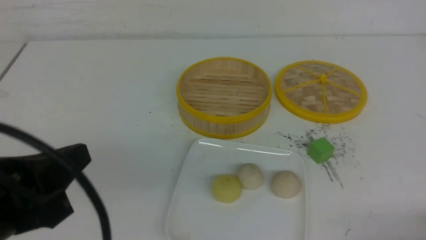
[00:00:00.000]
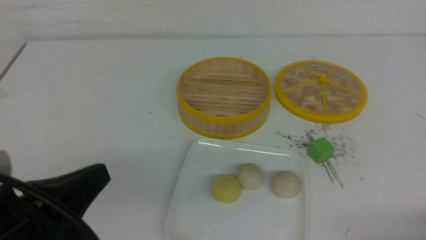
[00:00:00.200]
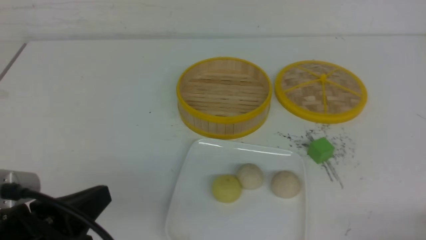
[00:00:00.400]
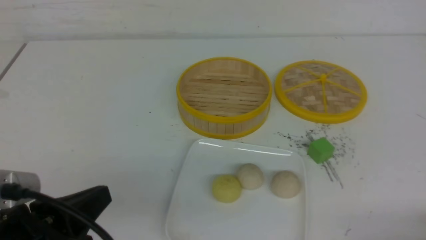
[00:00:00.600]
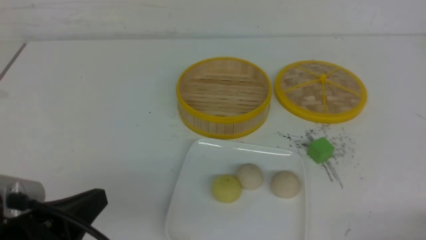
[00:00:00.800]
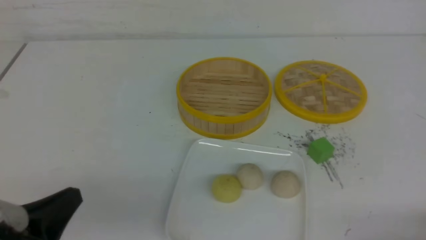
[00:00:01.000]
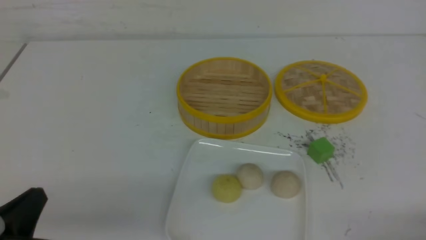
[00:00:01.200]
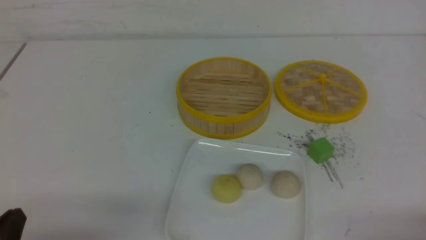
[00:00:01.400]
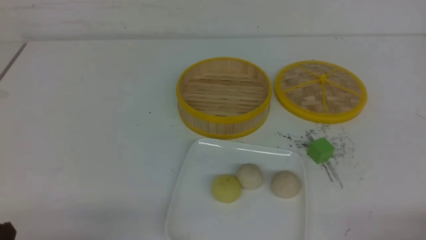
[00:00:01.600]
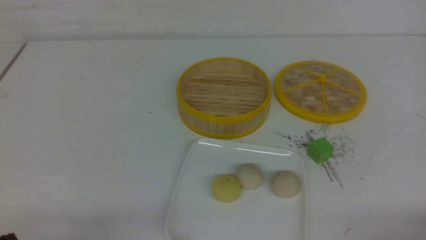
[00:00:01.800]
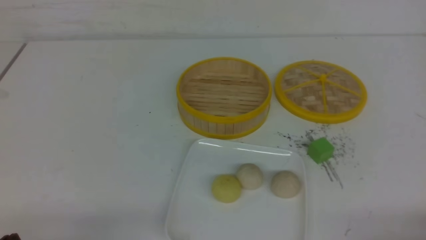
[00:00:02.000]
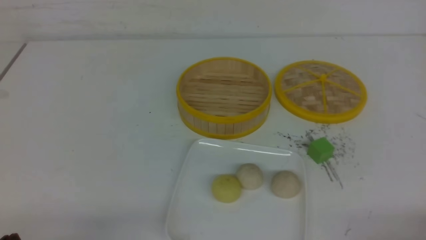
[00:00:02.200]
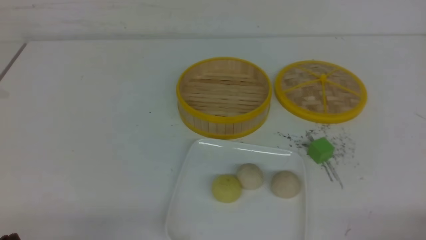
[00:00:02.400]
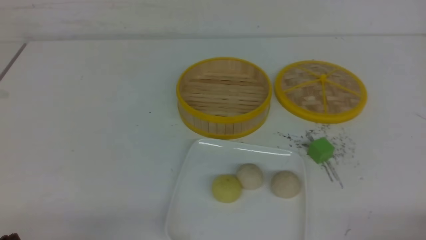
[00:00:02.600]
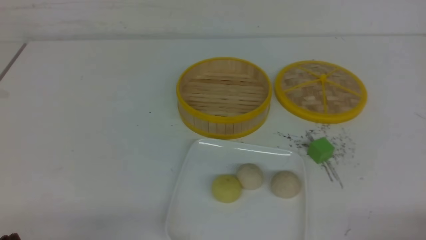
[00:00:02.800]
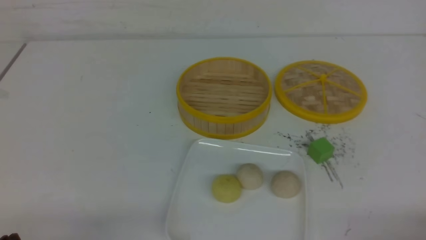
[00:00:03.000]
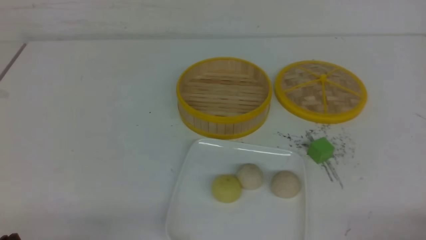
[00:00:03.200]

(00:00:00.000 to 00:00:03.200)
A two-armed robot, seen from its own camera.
00:00:00.000 - 00:00:01.600: The left gripper heads downward and to the left, covering approximately 15 cm.
00:00:01.600 - 00:00:03.200: Neither gripper changes place.
